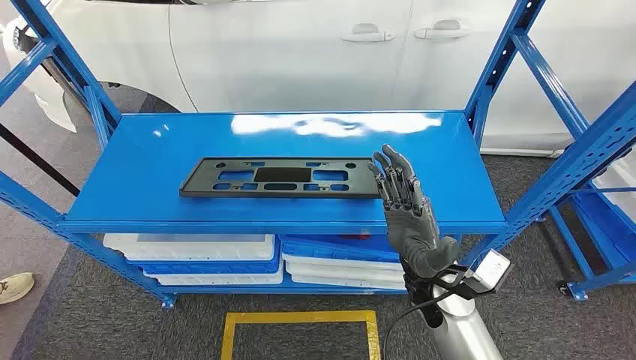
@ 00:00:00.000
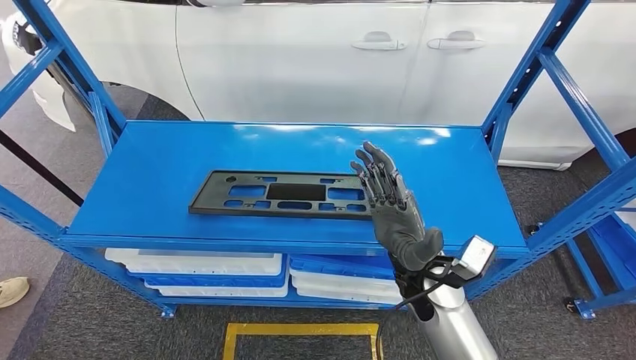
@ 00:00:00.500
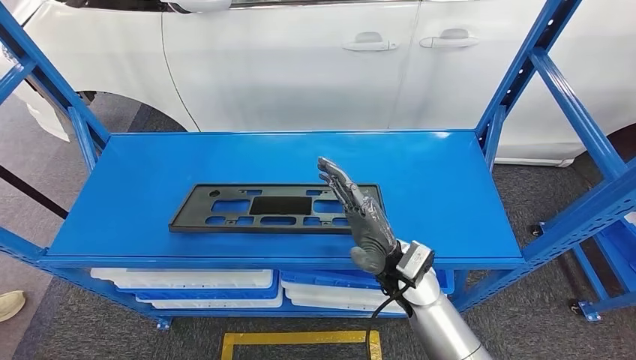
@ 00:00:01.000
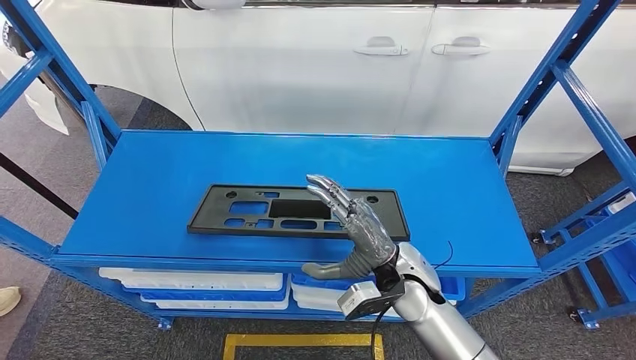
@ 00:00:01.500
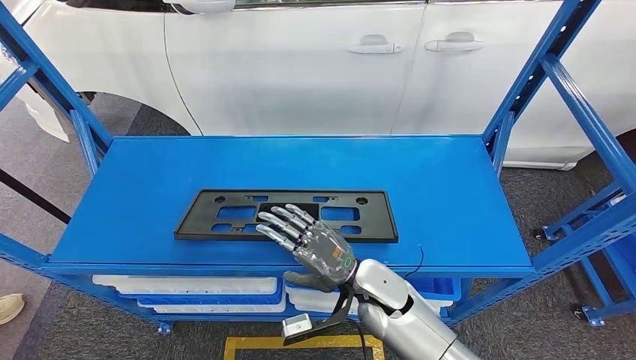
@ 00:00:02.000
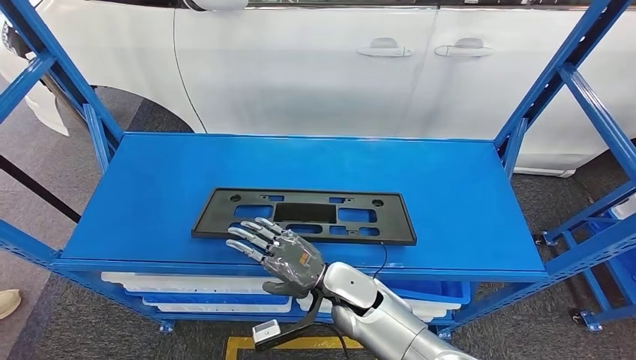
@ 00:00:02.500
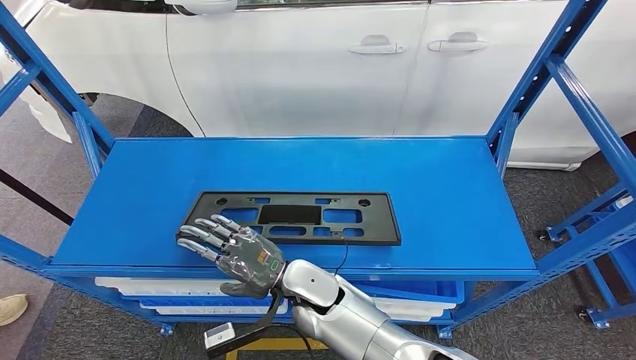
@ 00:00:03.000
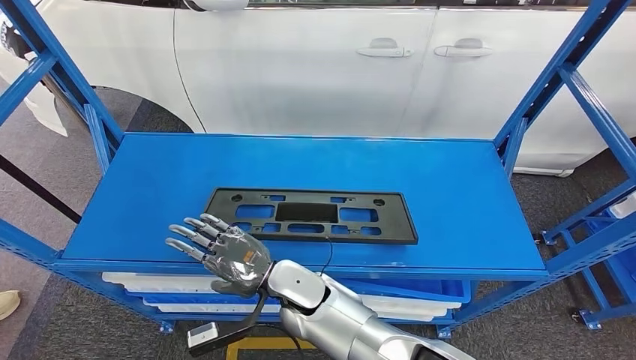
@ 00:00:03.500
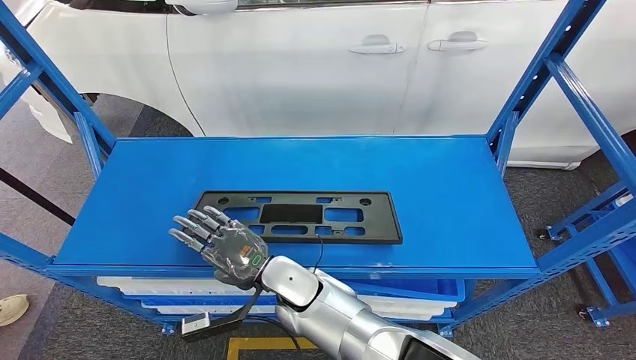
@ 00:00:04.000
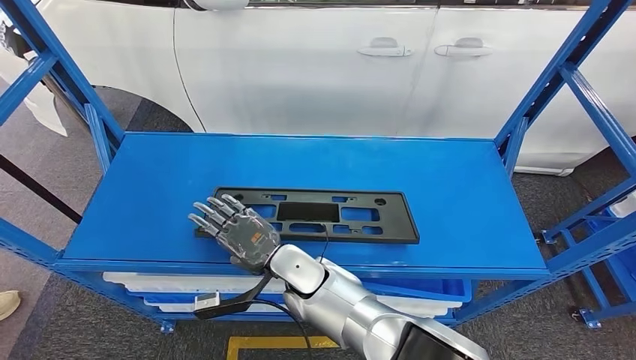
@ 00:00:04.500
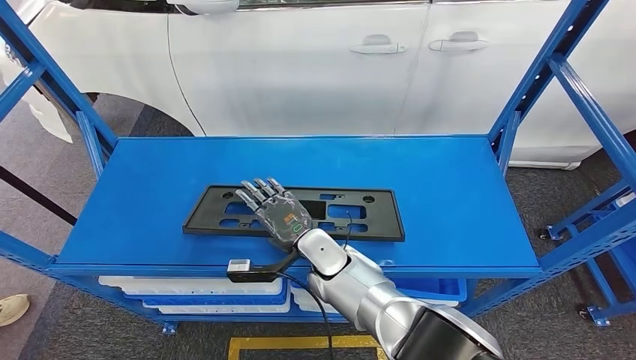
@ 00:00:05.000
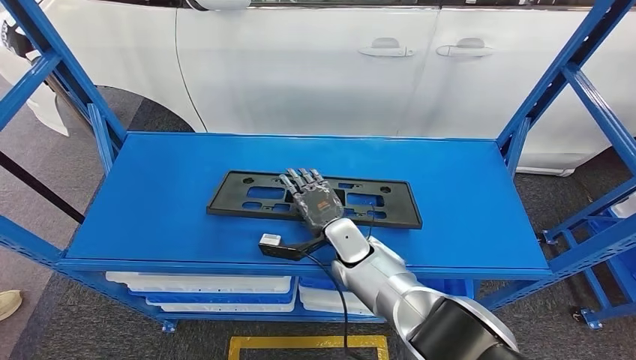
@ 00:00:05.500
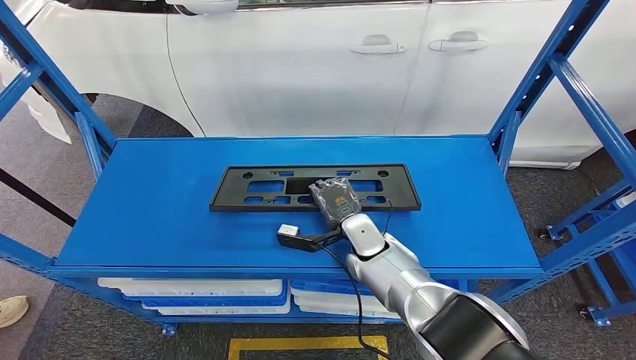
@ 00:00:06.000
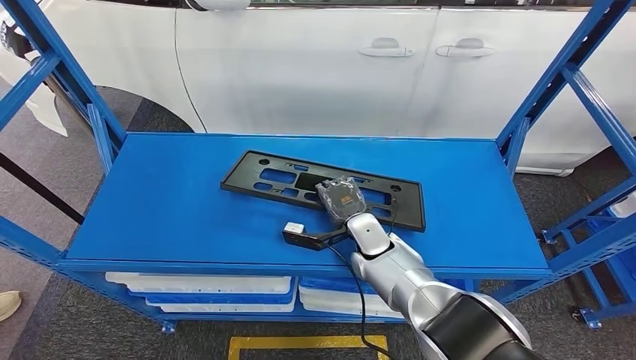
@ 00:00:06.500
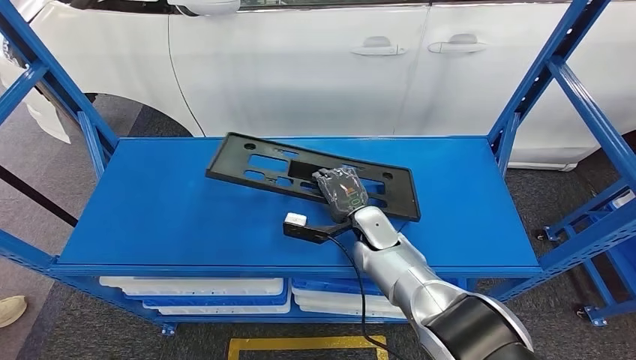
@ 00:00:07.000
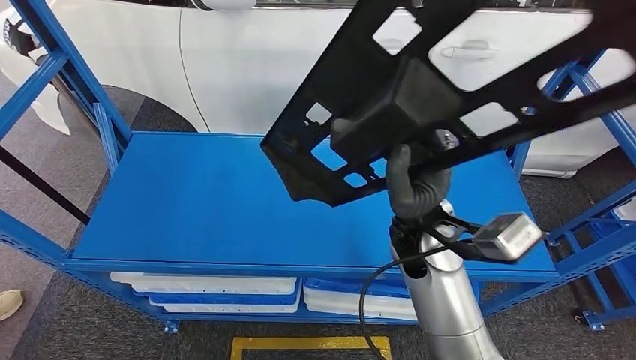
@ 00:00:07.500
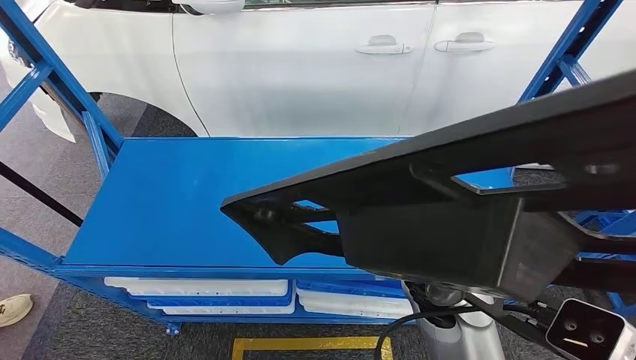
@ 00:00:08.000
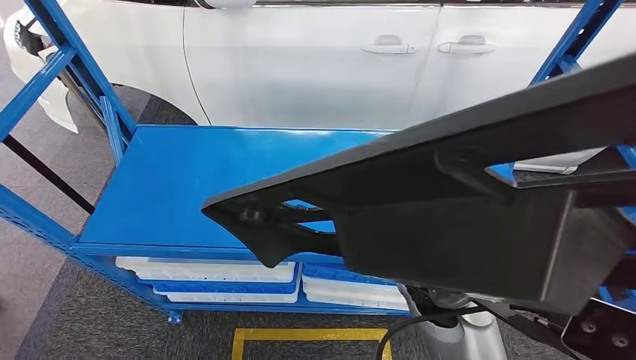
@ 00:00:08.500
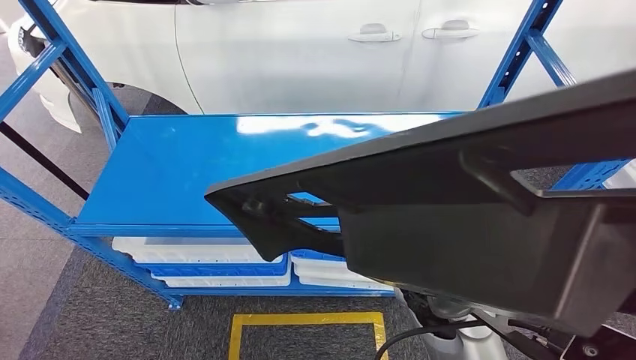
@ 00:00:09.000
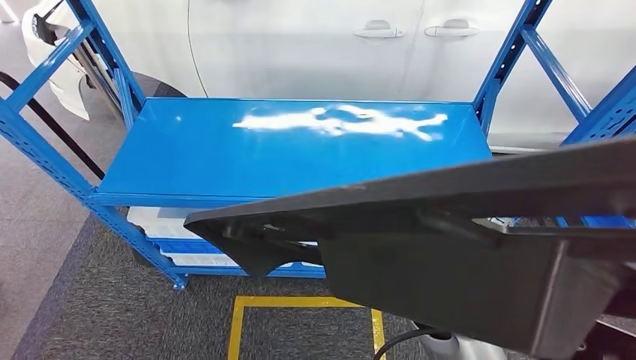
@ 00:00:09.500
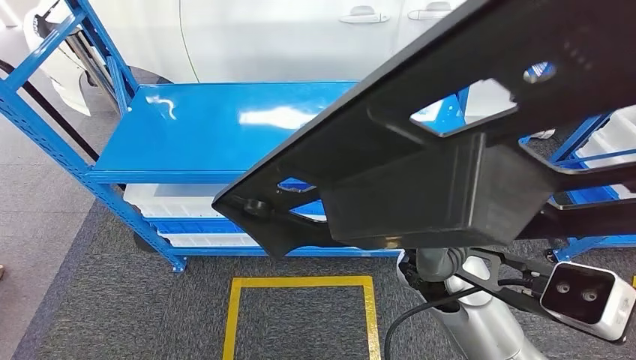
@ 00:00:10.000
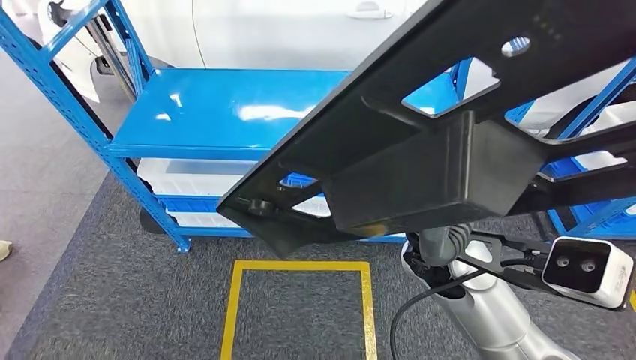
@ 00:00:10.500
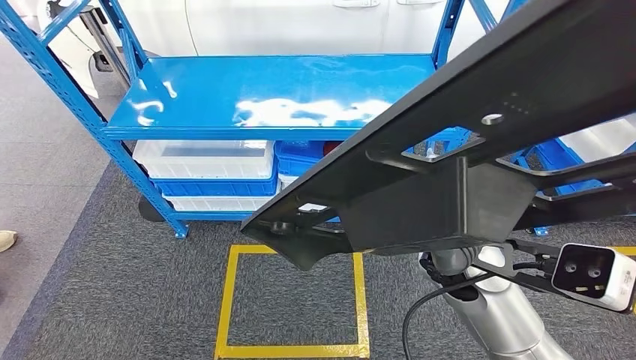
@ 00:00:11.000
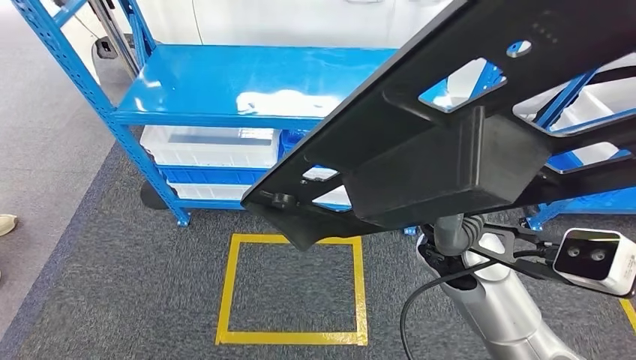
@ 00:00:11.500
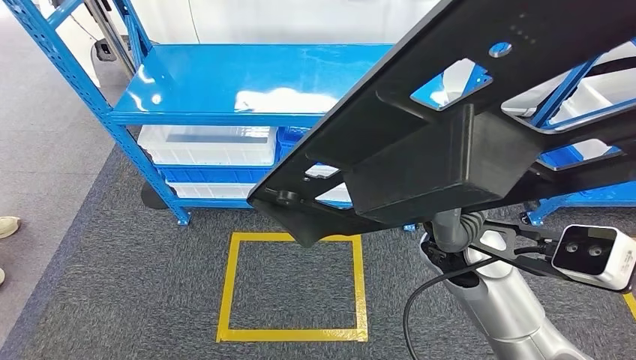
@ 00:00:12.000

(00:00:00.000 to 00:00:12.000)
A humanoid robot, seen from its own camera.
Step, 00:00:00.000 - 00:00:07.000: Pick up the large material from the shelf.
00:00:02.000 - 00:00:04.000: The right hand goes about 15 cm to the left.
00:00:04.000 - 00:00:06.000: The right hand heads to the right and forward, covering about 15 cm.

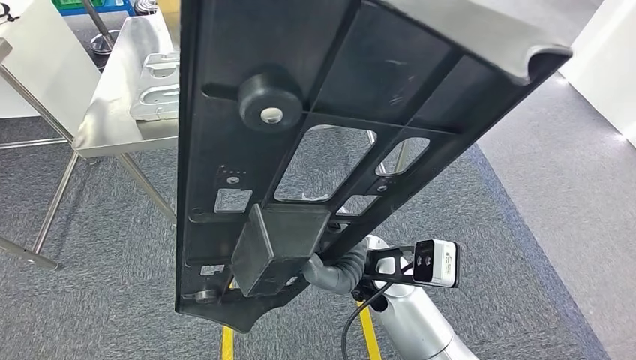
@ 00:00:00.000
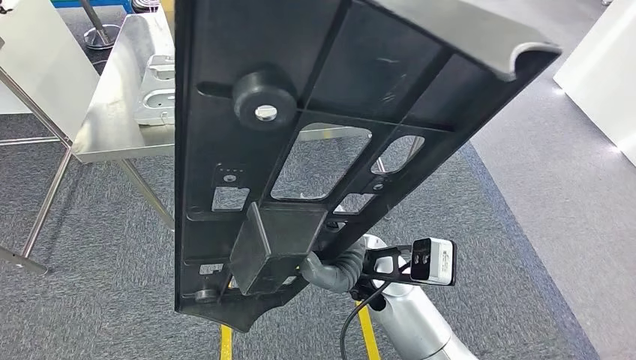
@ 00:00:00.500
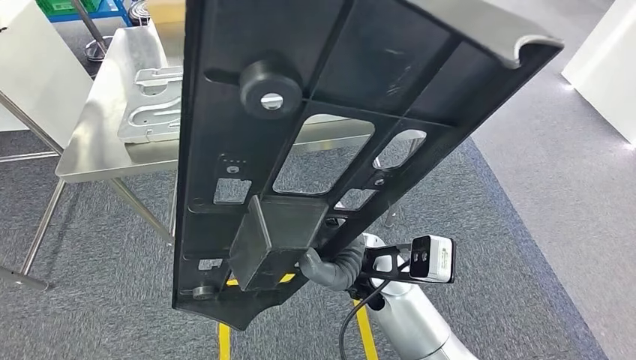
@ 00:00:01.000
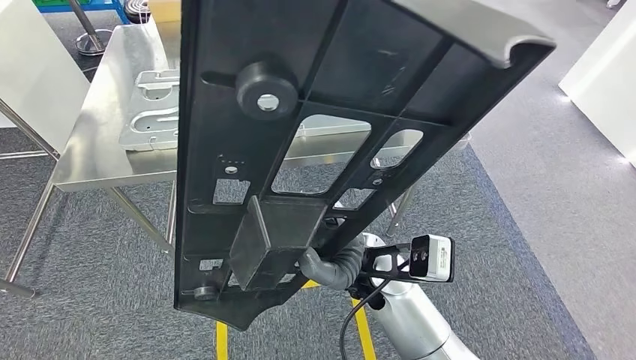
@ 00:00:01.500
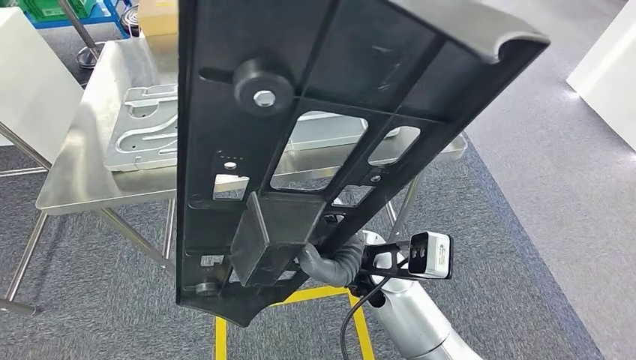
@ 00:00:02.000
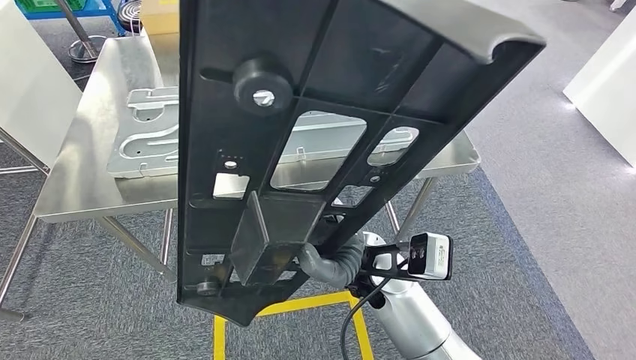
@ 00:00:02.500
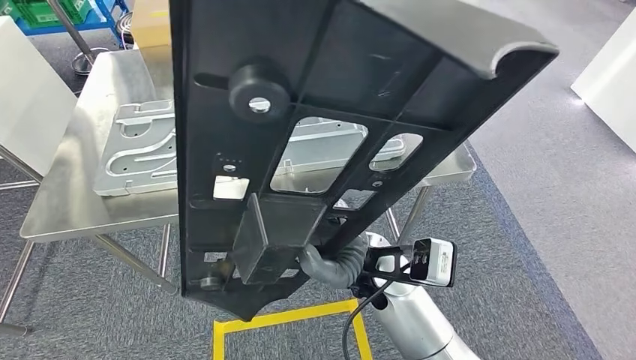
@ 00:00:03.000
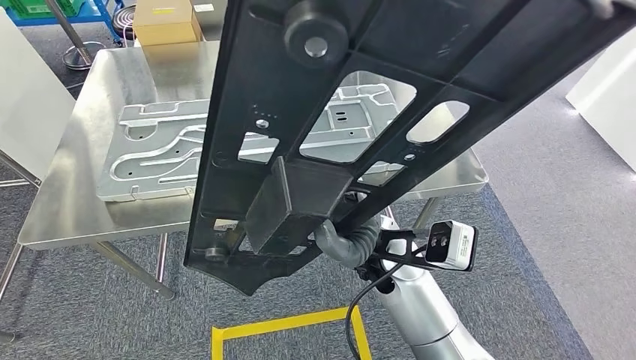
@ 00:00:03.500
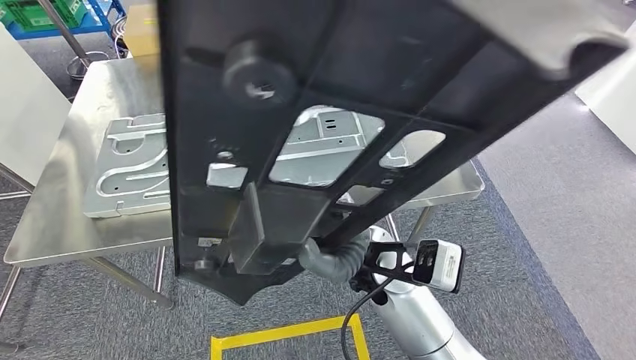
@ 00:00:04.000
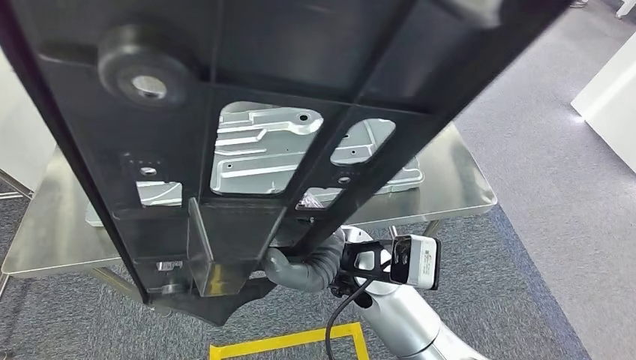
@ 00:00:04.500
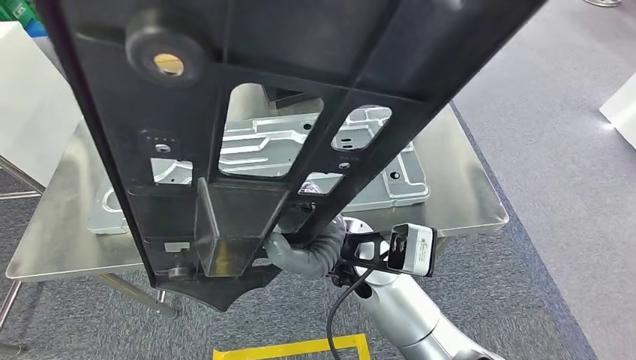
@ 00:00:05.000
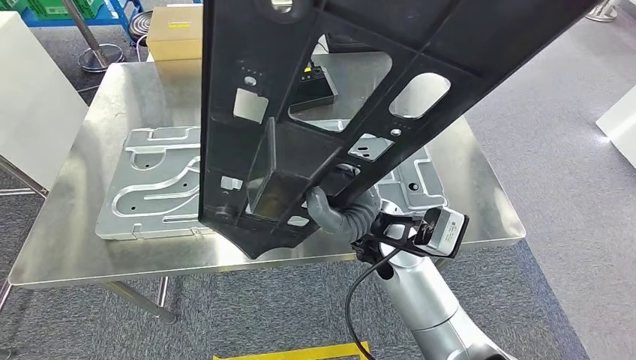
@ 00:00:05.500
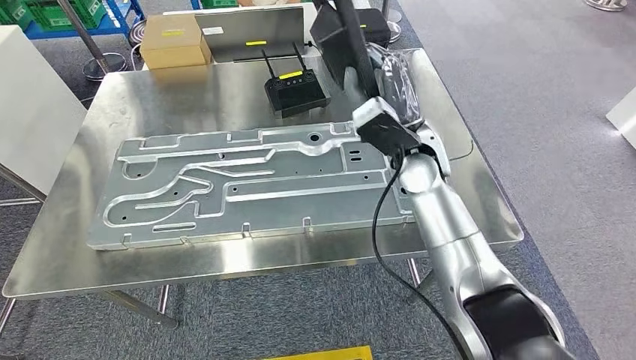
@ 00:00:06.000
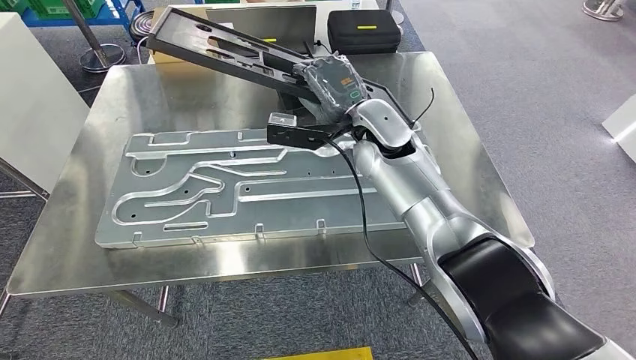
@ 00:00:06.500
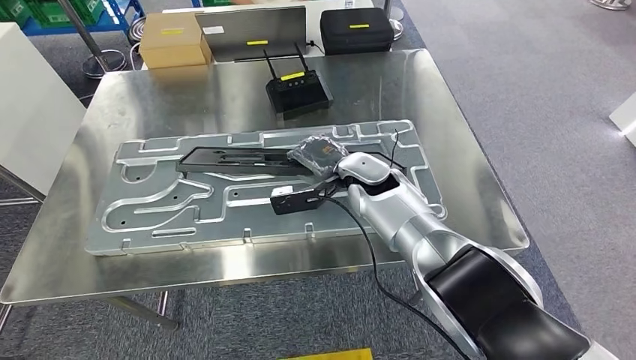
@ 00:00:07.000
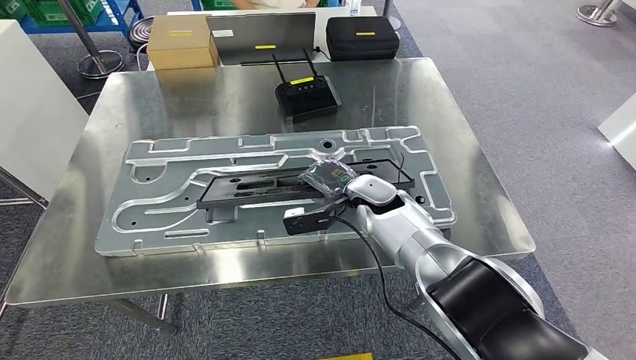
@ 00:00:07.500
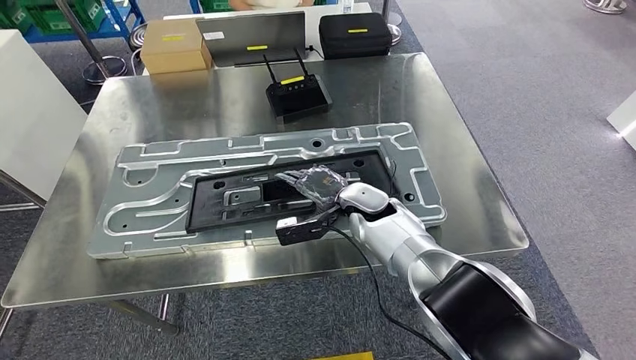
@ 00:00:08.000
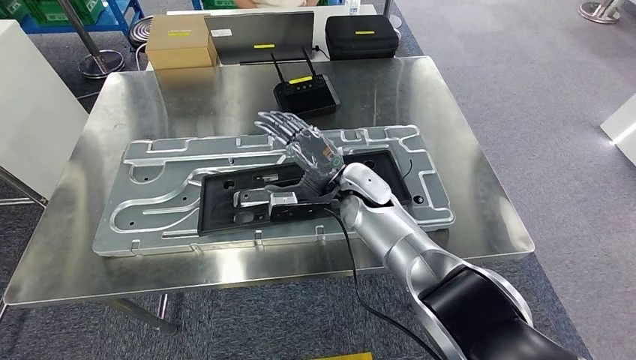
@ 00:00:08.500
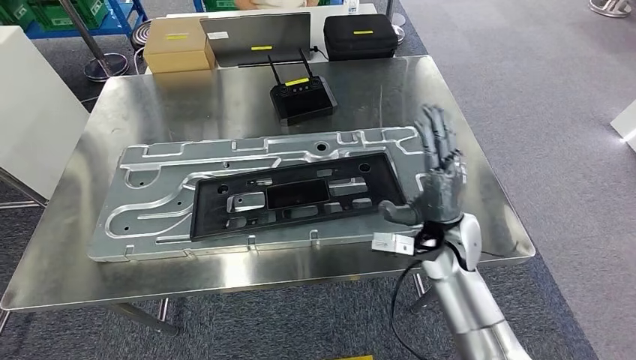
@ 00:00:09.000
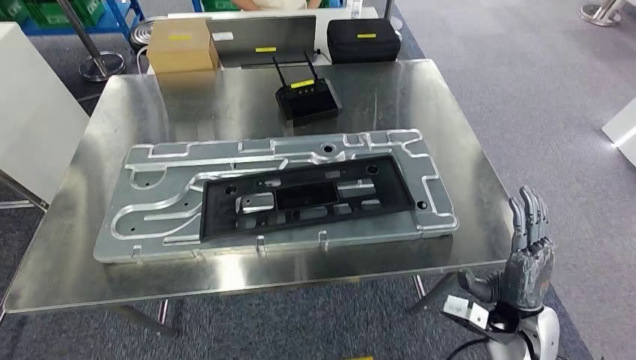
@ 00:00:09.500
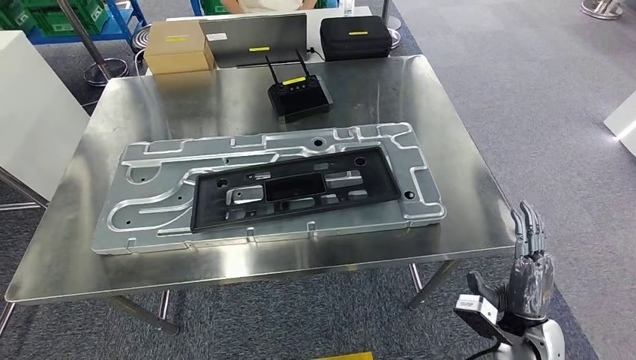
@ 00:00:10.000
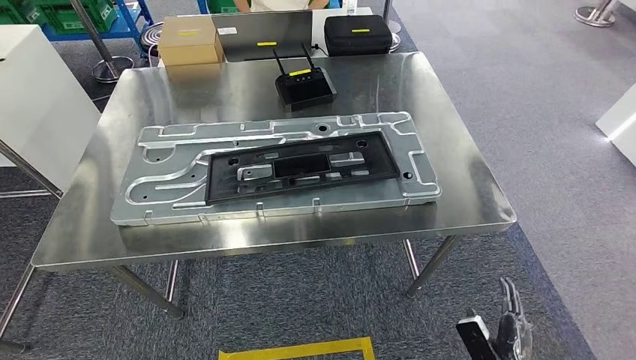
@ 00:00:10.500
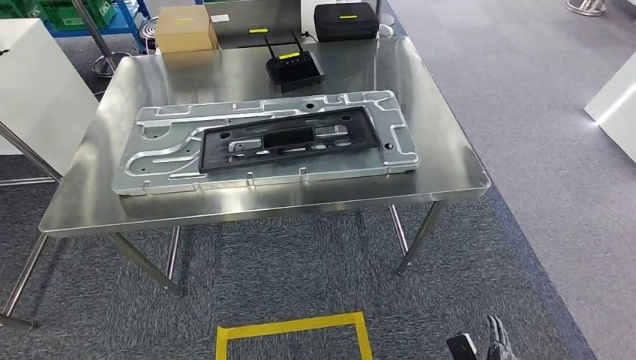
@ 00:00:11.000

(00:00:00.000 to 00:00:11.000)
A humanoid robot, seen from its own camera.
Step, 00:00:00.000 - 00:00:03.000: Move the large material to the front of the workbench.
Step, 00:00:03.500 - 00:00:09.000: Insert the large material into the corresponding hole on the workbench.
